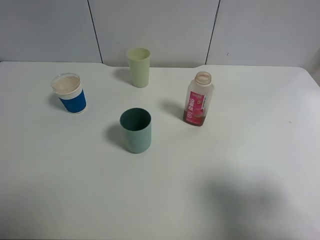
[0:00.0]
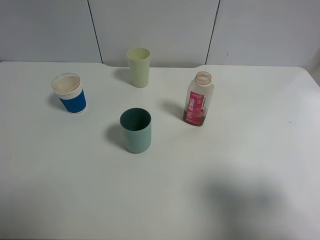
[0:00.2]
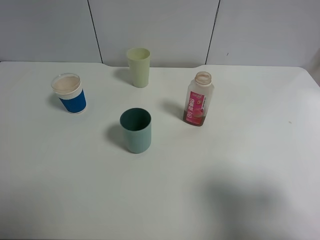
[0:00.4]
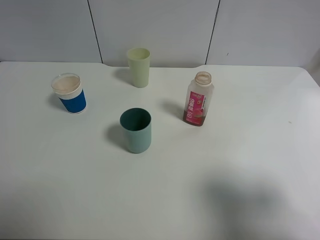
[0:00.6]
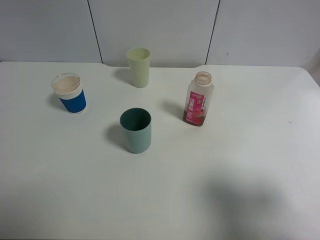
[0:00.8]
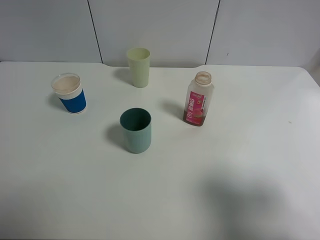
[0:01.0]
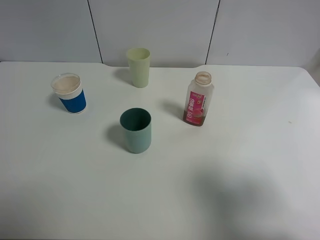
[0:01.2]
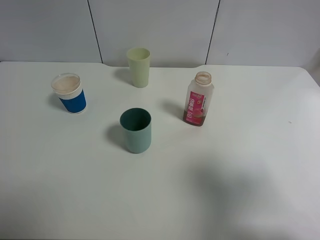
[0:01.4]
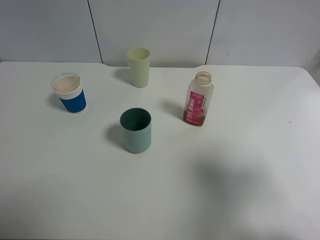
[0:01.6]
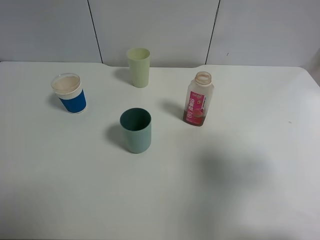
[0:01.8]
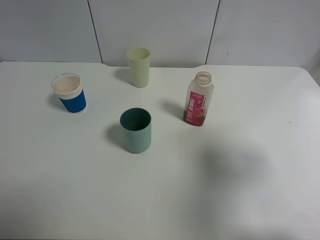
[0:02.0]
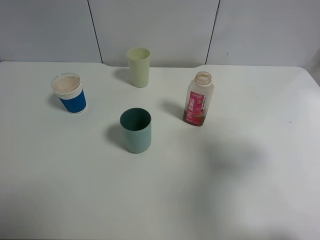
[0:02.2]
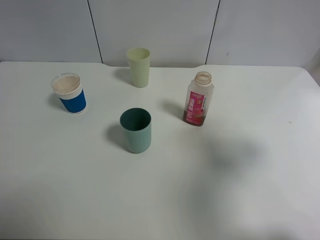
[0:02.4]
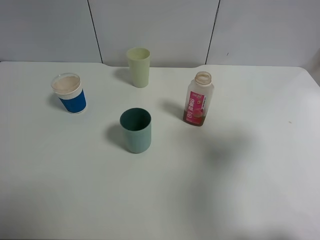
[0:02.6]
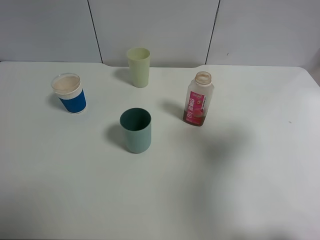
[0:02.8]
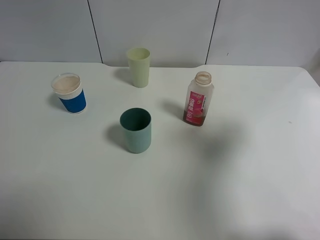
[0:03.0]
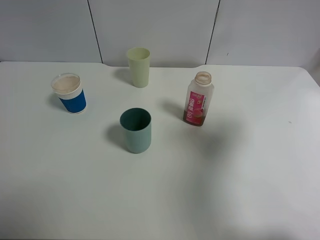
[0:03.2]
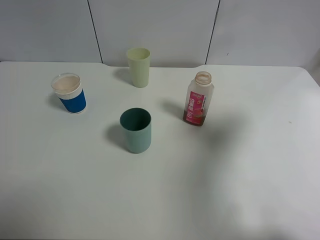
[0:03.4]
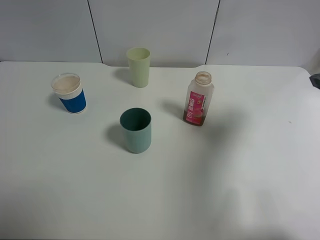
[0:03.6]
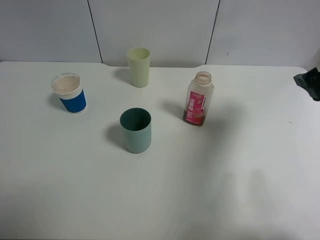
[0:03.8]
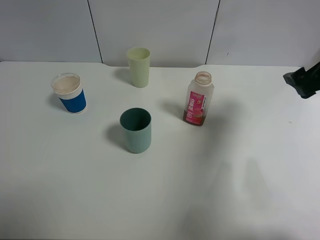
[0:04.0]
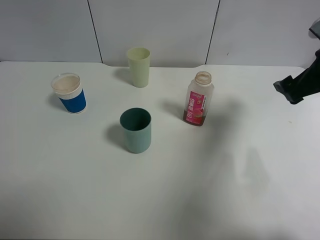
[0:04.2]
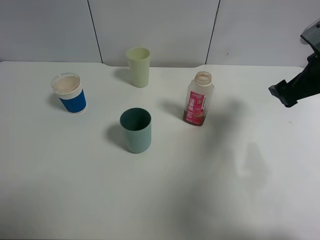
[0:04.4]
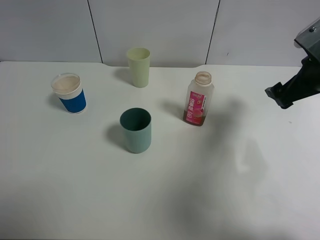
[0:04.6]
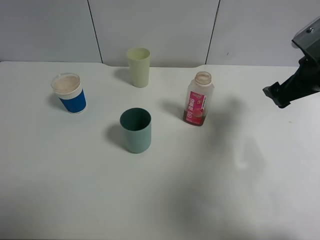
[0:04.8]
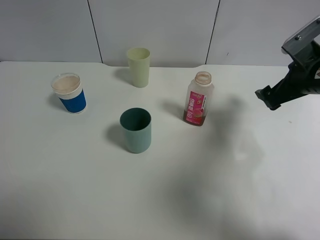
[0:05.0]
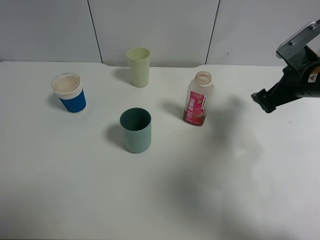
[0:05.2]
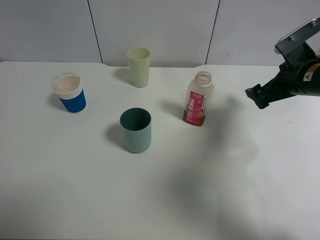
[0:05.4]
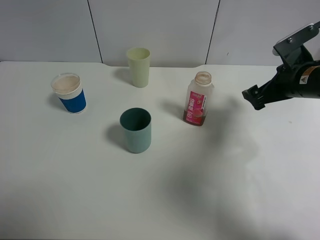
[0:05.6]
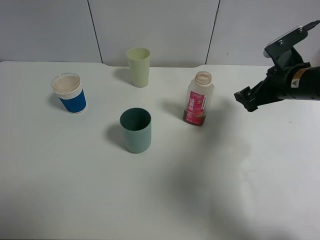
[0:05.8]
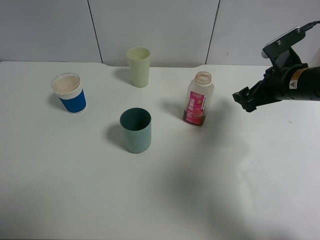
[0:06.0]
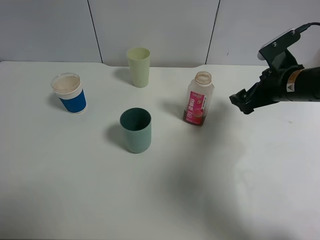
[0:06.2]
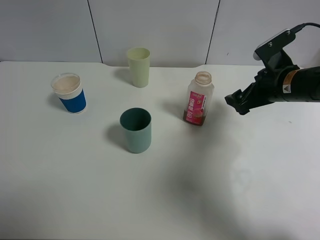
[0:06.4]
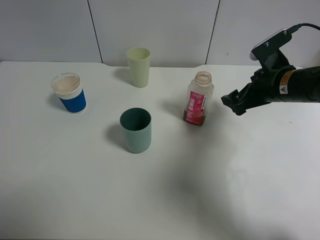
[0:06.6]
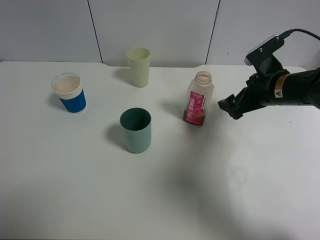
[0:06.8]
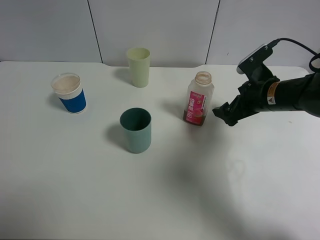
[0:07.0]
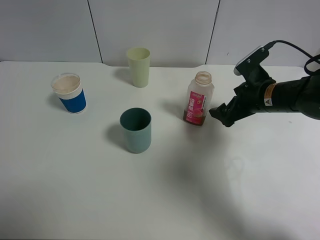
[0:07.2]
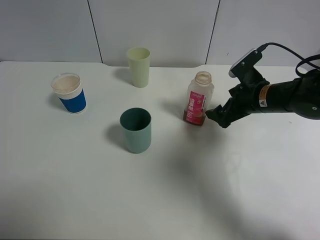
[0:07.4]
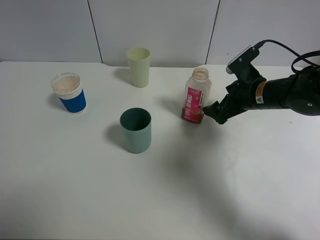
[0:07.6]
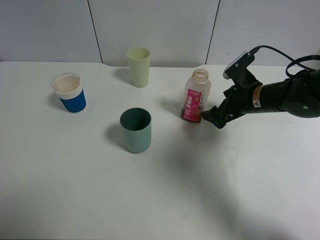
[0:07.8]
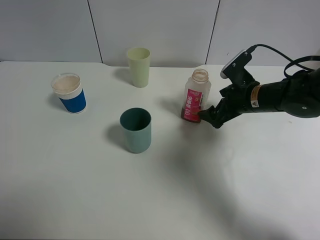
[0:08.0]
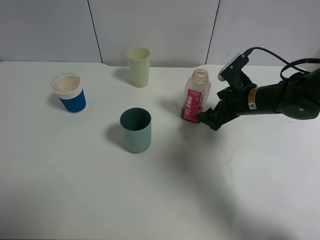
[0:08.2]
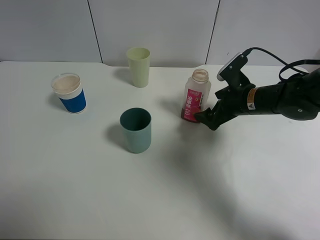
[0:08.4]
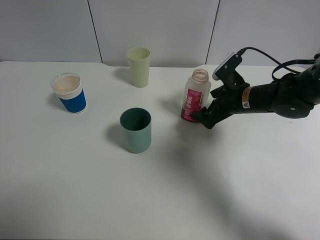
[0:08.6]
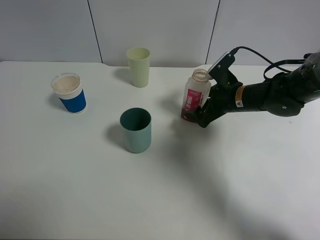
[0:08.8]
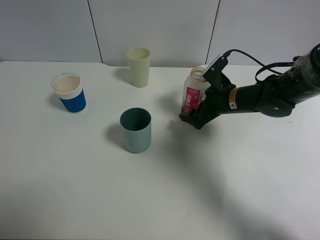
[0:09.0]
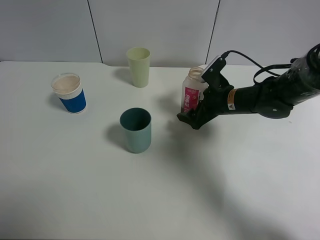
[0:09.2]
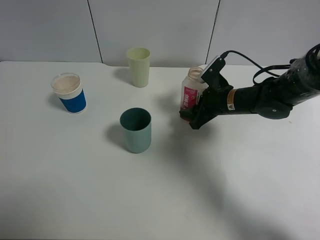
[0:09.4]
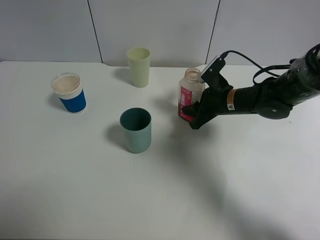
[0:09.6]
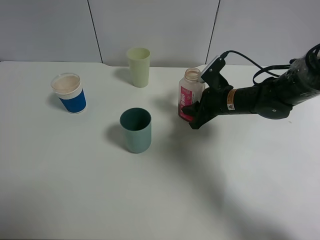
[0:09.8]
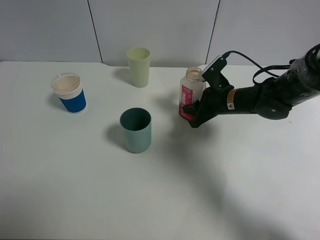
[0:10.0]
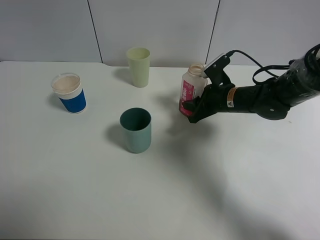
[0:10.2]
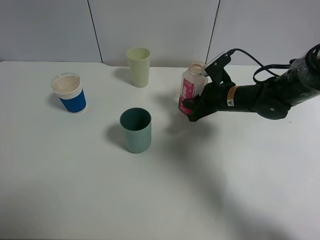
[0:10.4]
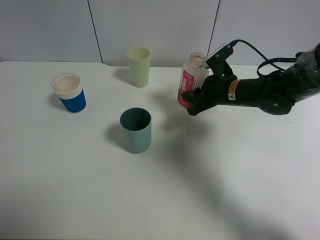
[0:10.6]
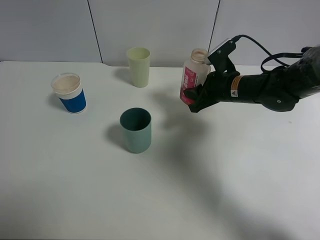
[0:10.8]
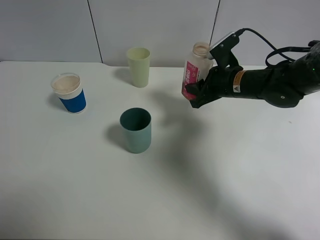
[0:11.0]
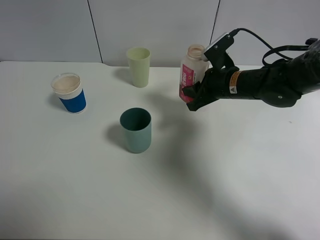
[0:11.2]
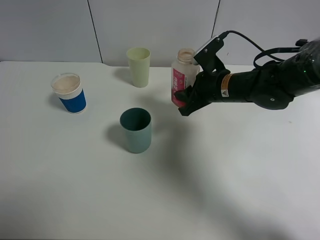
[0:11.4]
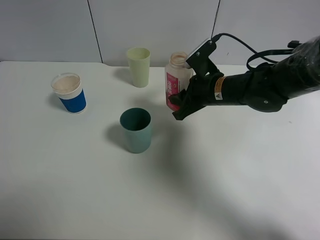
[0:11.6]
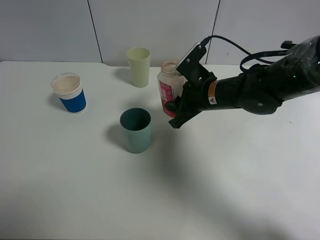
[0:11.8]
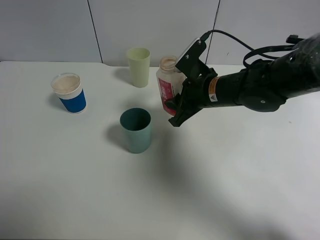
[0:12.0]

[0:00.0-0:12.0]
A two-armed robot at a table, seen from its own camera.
Task of the whole recording: use a clamp to hold the bottle of the drink, pour the beverage into a random cup, then clamp the cup containing the drink and pour the drink into another random cup.
Step, 0:00.0 to 0:10.8: Pick up the drink bottle with right gripper.
0:00.0 to 0:01.6: The right gripper ends up approximately 5 cm from where it was.
0:01.6 to 0:03.0: The right gripper moves forward, about 10 cm.
0:03.0 to 0:04.4: The right gripper travels forward and downward by approximately 15 cm.
0:04.4 to 0:06.0: The right gripper moves approximately 5 cm.
0:06.0 to 0:07.6: The right gripper shifts by about 5 cm.
0:07.6 to 0:09.0: The right gripper moves roughly 5 cm.
0:09.0 to 0:10.4: The right gripper closes its fingers.
0:10.4 to 0:12.0: The right gripper is displaced to the left and upward by about 10 cm.

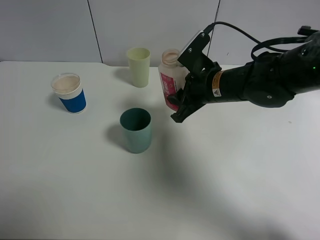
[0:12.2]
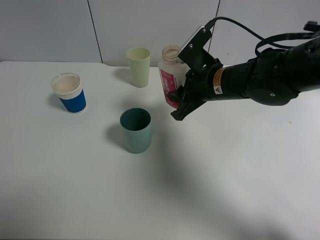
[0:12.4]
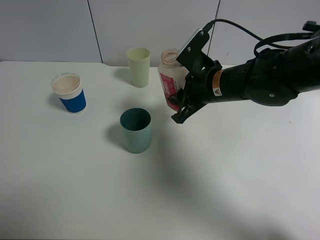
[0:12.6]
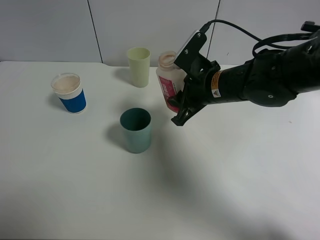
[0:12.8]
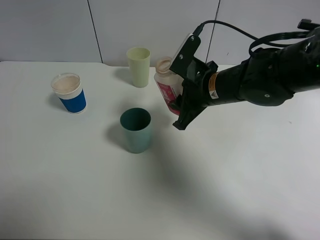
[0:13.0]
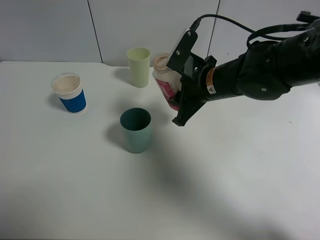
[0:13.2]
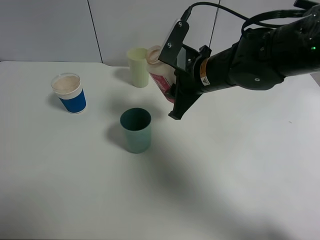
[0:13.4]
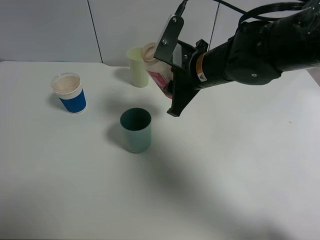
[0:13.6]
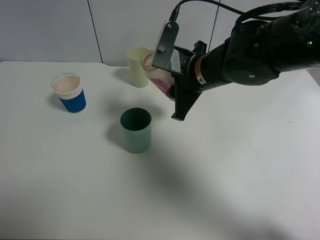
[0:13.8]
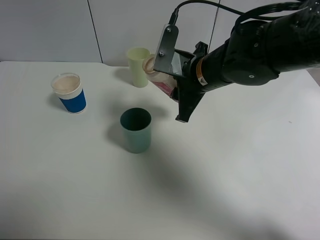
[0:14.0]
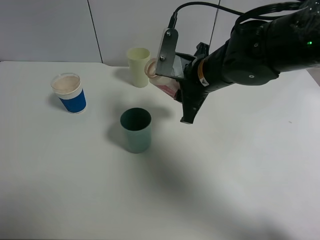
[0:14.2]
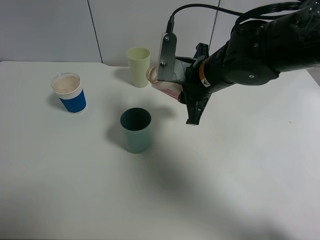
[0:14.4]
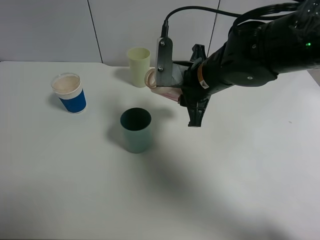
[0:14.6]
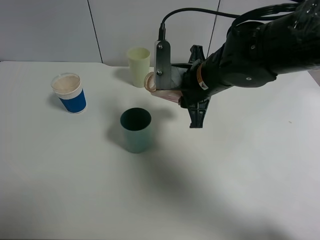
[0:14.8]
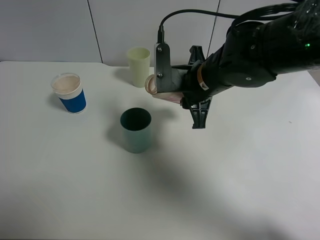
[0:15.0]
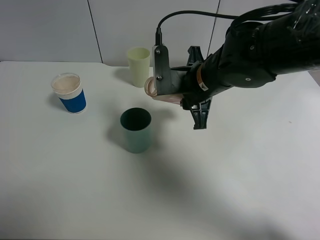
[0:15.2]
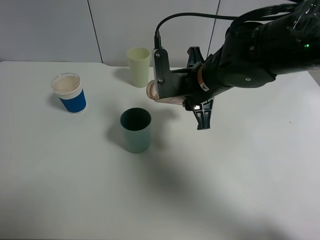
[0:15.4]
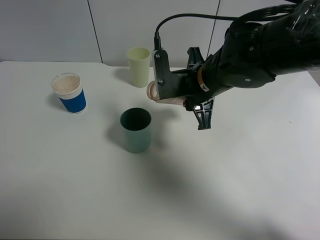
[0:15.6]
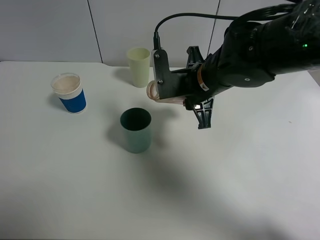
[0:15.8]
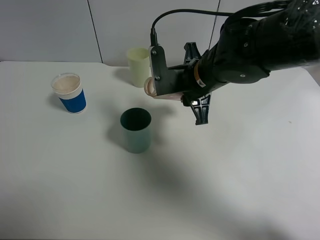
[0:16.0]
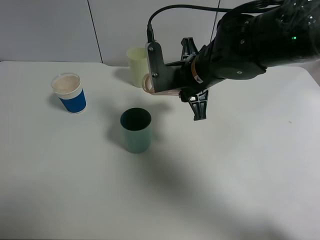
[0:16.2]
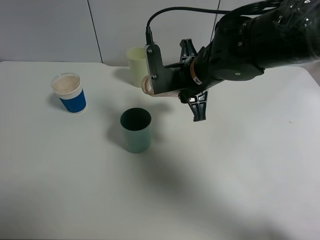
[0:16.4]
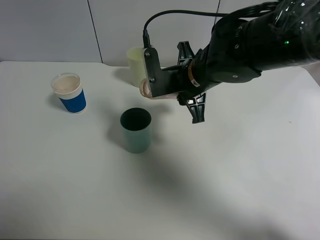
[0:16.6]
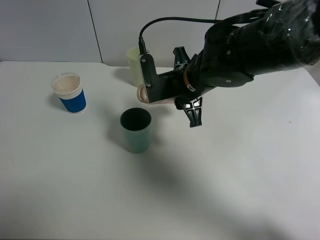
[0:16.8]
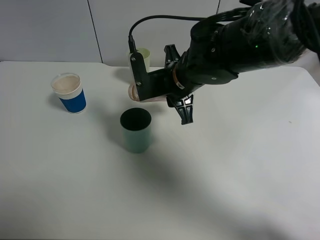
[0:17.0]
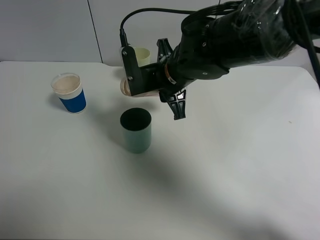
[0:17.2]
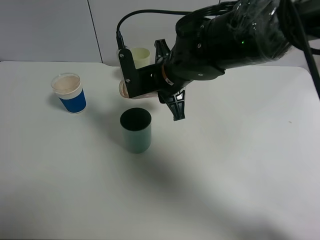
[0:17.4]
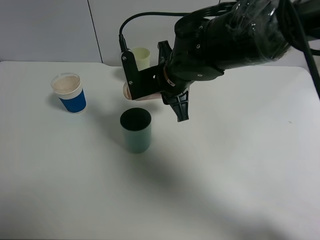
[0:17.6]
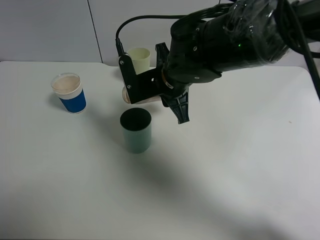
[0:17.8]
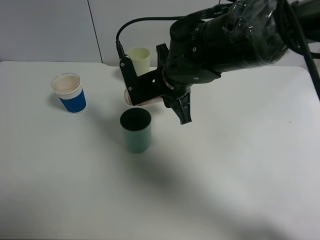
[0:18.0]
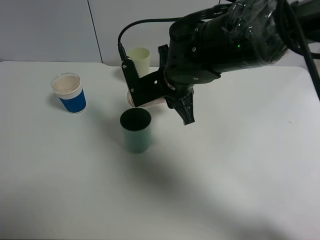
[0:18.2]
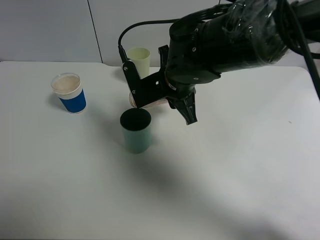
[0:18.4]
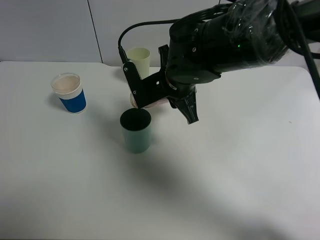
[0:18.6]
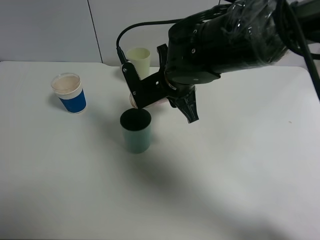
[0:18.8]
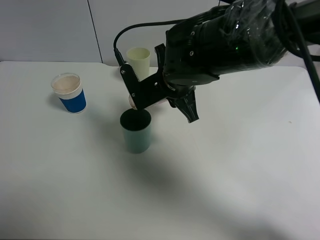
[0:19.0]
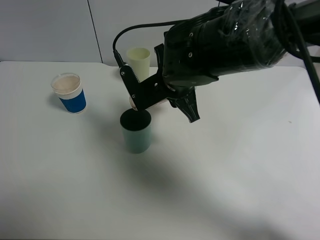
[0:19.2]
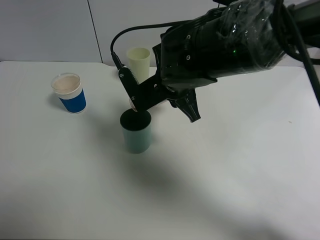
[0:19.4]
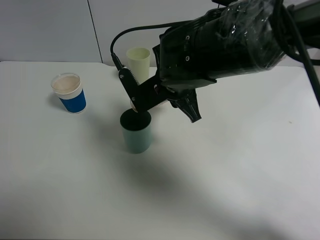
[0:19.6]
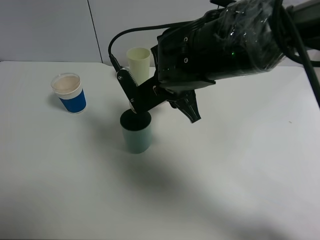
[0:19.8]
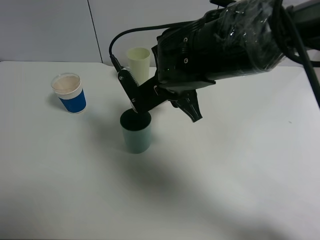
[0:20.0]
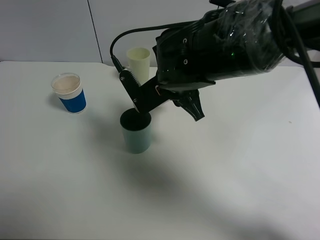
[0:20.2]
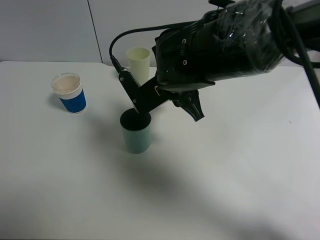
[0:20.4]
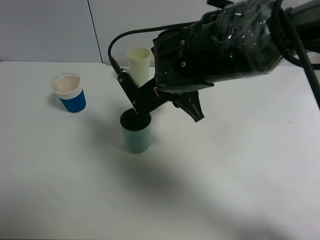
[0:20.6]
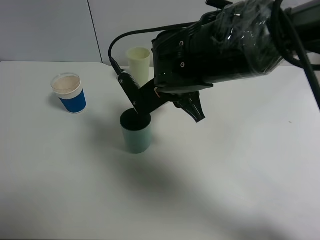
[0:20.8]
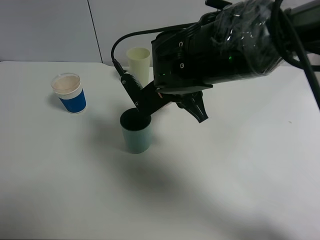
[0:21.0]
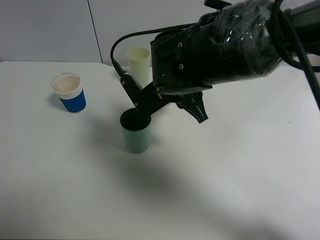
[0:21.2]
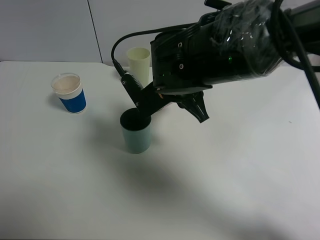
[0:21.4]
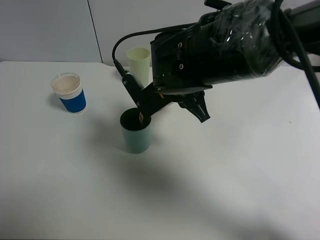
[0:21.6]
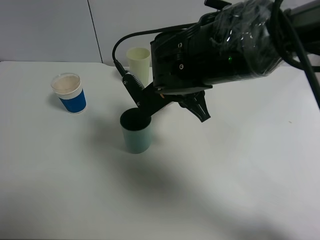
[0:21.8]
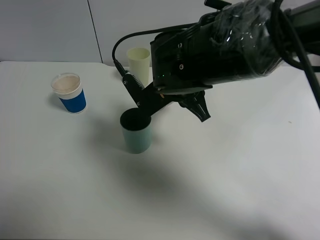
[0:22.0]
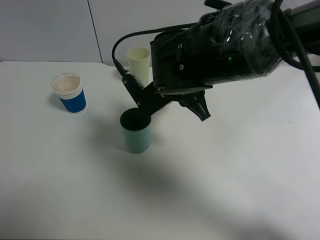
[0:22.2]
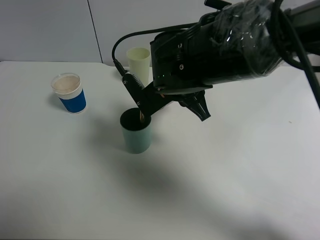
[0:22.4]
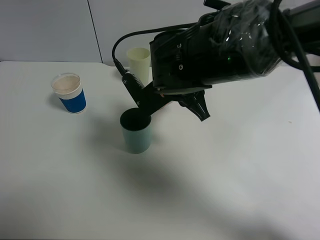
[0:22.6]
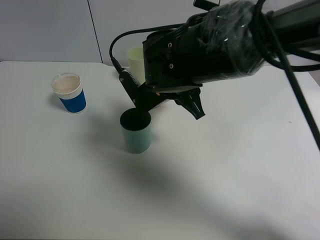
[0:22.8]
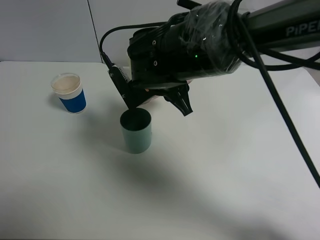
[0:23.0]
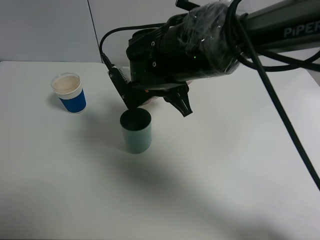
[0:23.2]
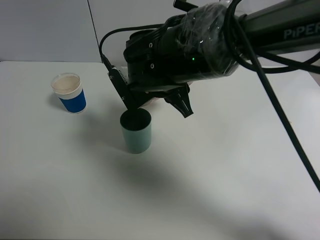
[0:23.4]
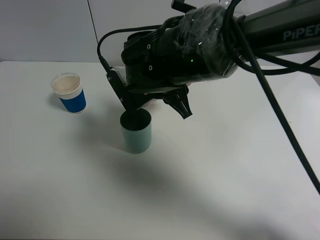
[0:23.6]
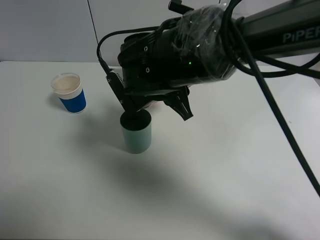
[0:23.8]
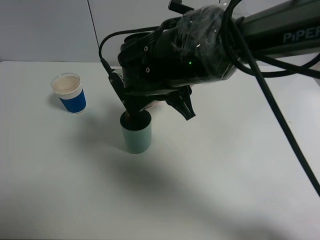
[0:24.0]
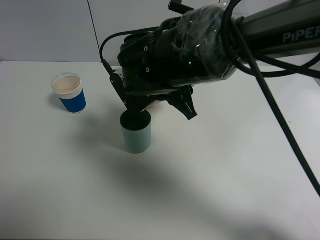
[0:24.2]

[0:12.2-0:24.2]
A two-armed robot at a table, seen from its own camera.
Task of the whole recording: use a clamp to hold the bottle of the drink, pour the beverage into a random cup, then clamp the cup containing the drink and pour the drink into another random cup.
0:15.2 to 0:18.2: The grippers stay close to where they were, moving slightly.
0:18.2 to 0:21.2: The grippers stay close to where they were, moving slightly.
0:21.2 to 0:22.6: Both grippers stay put.
0:22.6 to 0:24.2: There are only small adjustments of the grippers.
